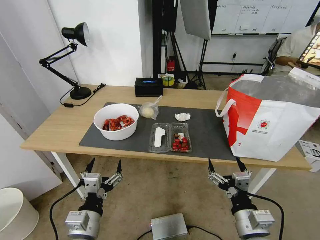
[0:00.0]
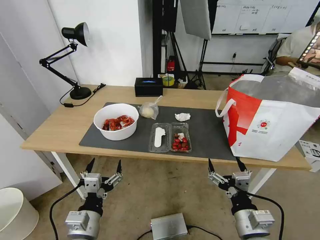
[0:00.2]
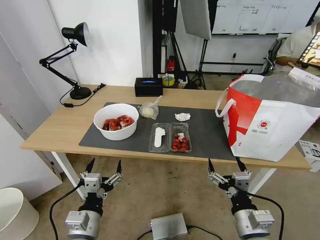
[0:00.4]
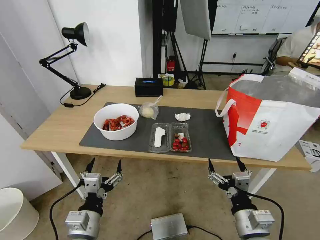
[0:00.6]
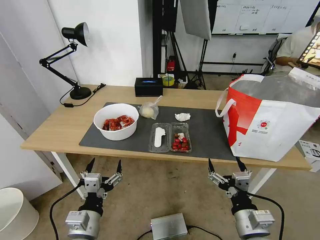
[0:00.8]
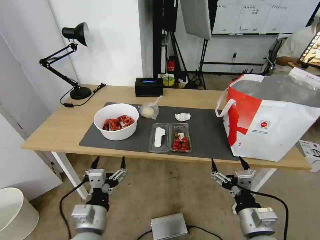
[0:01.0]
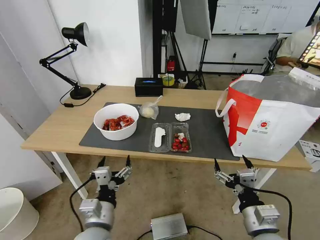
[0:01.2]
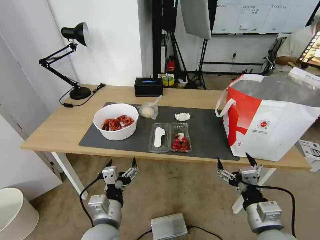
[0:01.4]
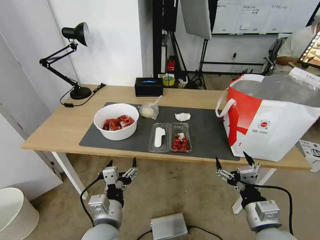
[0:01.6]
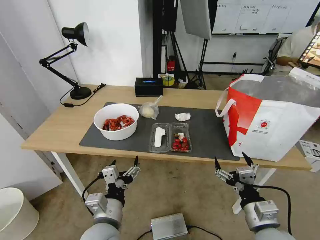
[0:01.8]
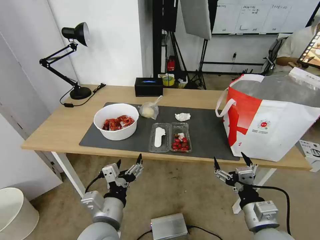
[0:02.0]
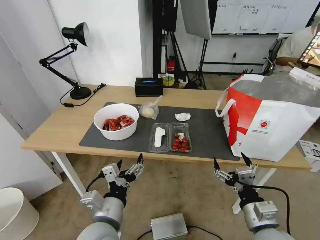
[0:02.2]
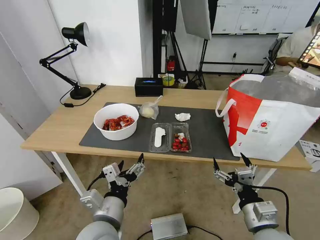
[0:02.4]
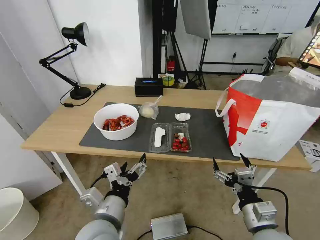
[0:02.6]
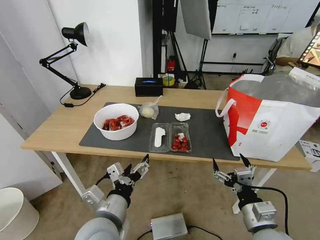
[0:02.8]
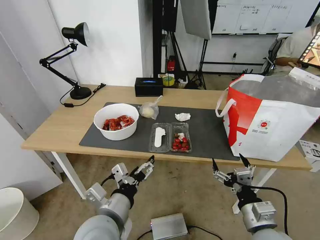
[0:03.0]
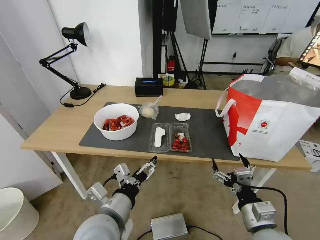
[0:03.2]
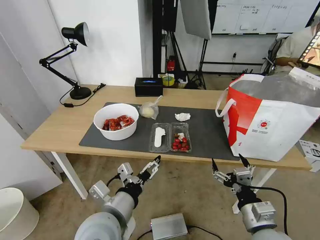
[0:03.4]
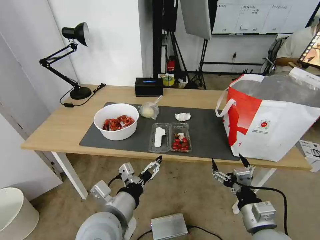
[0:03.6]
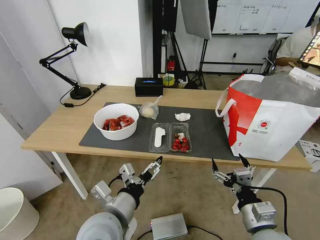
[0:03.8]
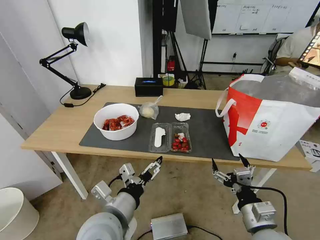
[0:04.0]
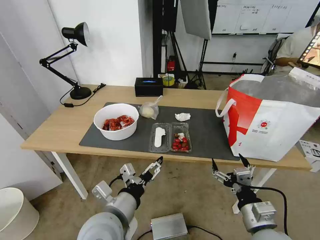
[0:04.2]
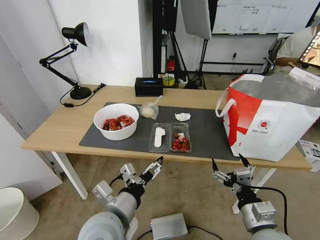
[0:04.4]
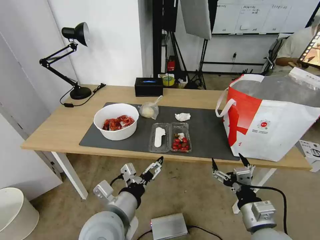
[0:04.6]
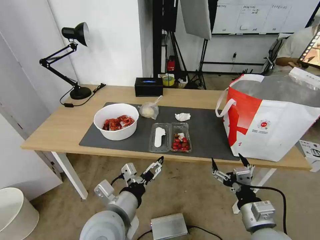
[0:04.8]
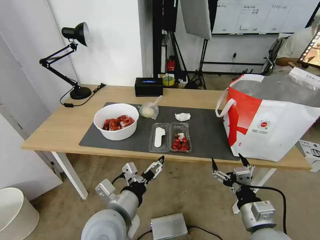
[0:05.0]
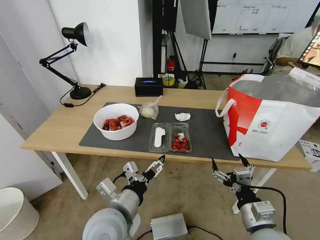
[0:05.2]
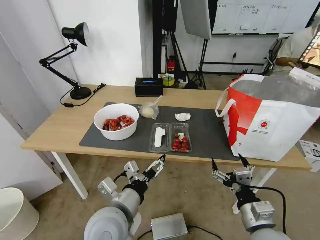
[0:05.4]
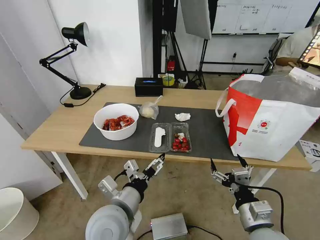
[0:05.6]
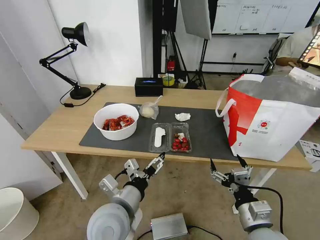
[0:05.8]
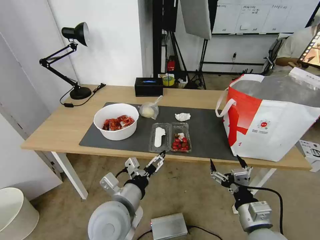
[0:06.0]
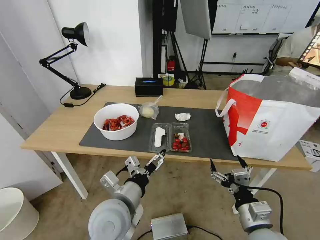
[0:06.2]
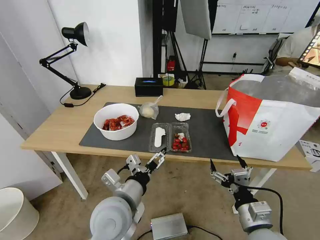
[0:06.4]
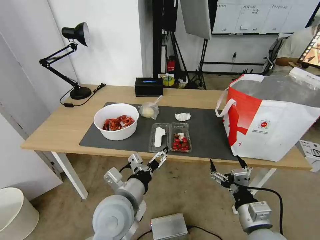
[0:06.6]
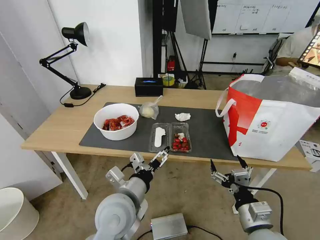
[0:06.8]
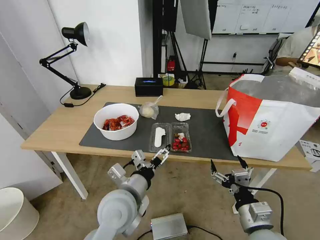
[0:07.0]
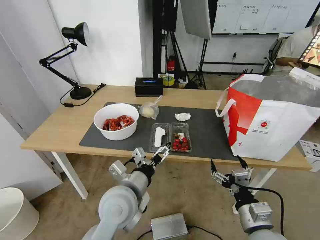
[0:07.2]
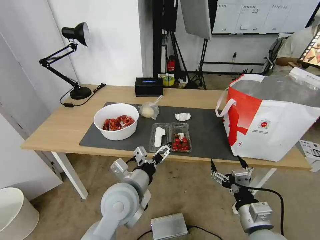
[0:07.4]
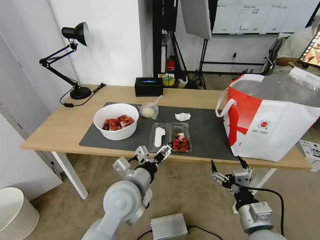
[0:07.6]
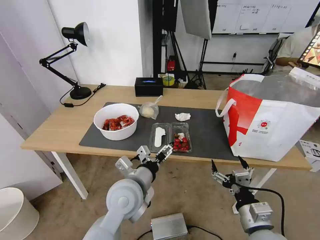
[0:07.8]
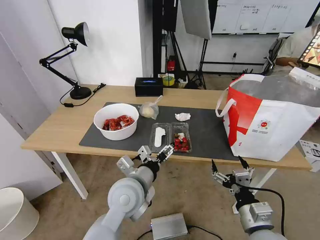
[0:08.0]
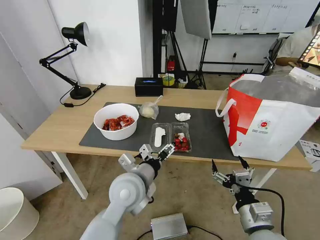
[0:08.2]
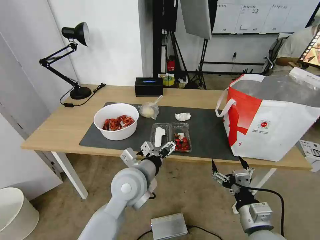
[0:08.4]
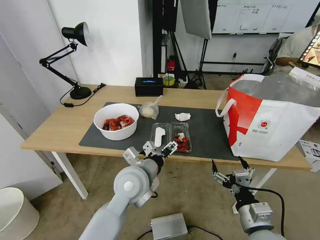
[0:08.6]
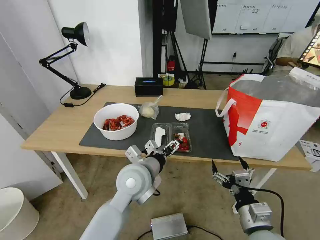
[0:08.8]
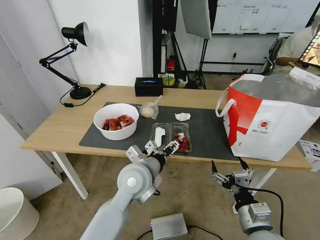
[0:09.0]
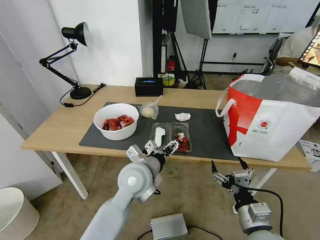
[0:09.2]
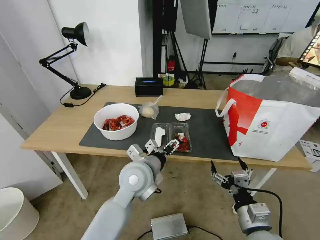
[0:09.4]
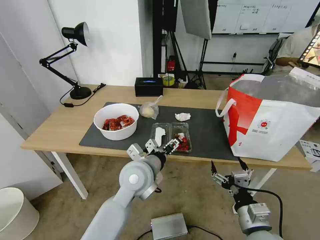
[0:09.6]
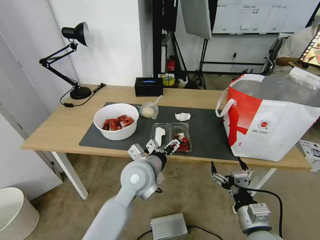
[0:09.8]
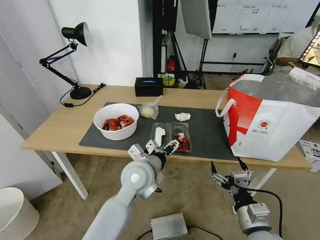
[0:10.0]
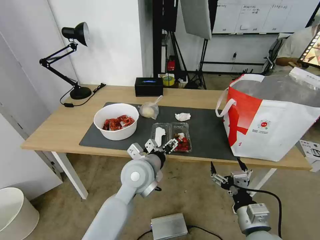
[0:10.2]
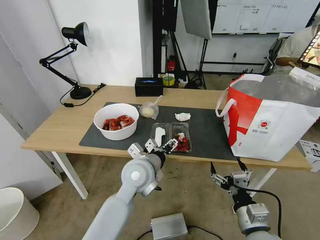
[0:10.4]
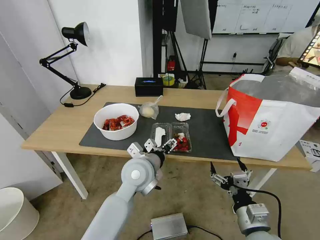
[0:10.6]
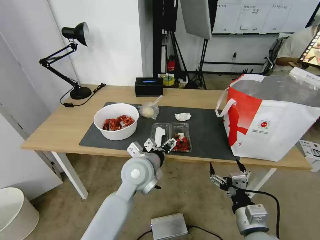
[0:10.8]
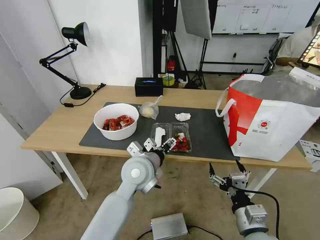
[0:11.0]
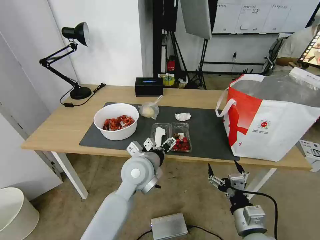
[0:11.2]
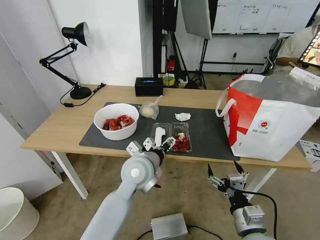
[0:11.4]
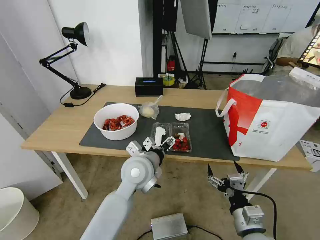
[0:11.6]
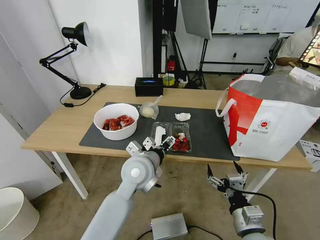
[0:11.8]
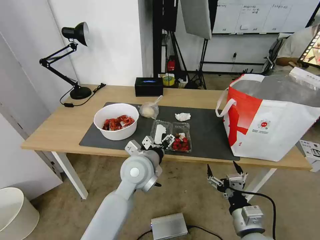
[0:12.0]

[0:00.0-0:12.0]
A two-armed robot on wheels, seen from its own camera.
Task of the whole recording: Pick up the trash from the table and place it into the takeout bag.
0:01.6 to 0:03.0: The left gripper goes roughly 5 cm upward.
0:03.0 to 0:06.0: The grippers make only small movements.
0:06.0 to 0:07.6: The left gripper goes about 5 cm forward.
0:07.6 to 0:09.0: The left gripper moves some 5 cm.
0:09.0 to 0:12.0: The grippers move only a little.

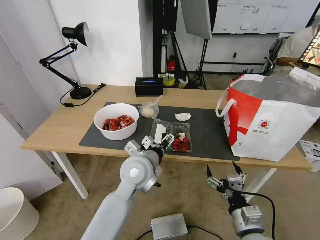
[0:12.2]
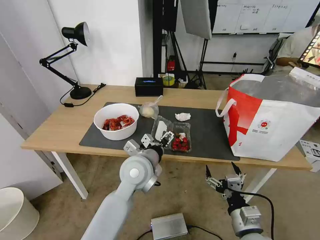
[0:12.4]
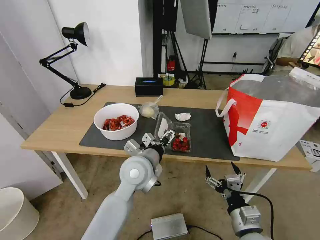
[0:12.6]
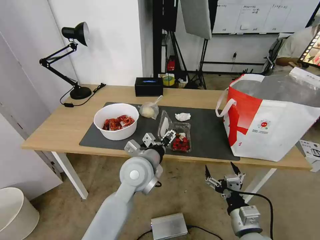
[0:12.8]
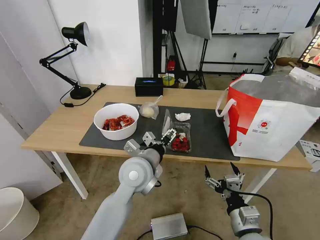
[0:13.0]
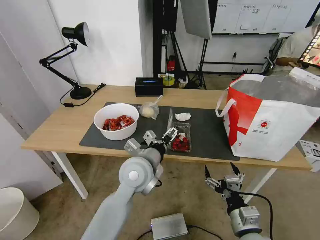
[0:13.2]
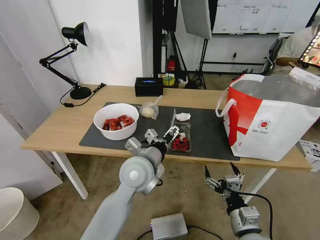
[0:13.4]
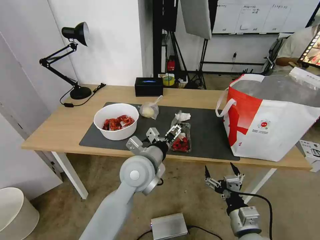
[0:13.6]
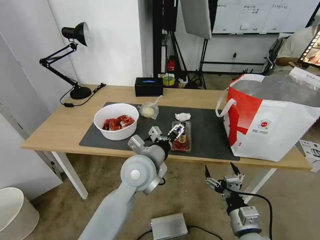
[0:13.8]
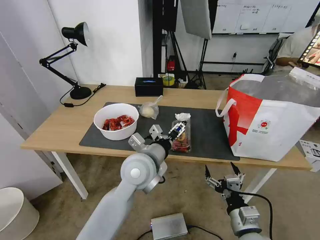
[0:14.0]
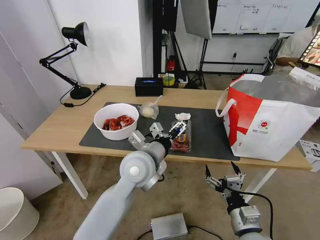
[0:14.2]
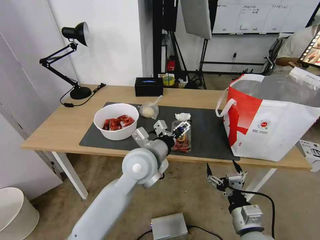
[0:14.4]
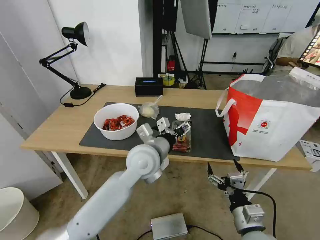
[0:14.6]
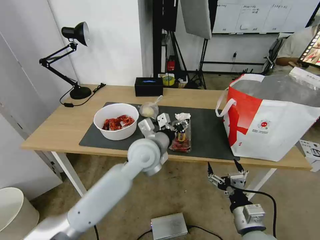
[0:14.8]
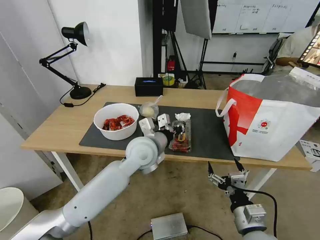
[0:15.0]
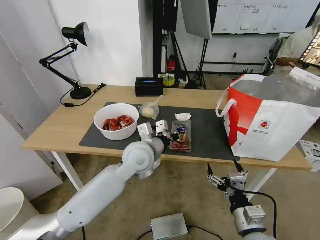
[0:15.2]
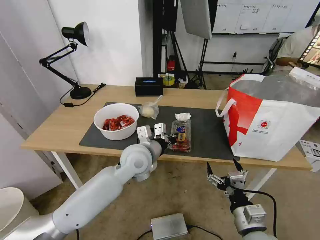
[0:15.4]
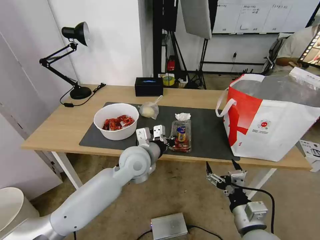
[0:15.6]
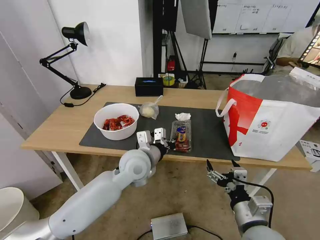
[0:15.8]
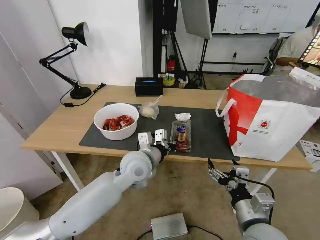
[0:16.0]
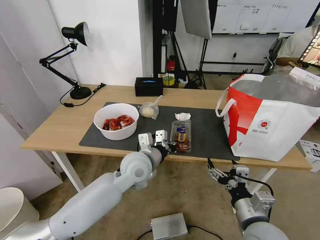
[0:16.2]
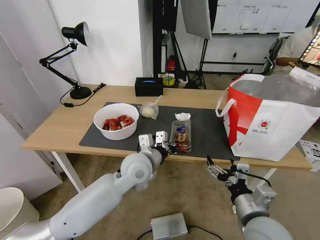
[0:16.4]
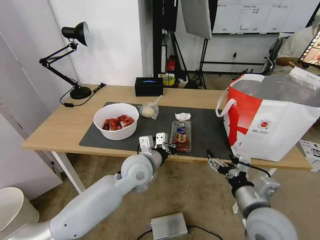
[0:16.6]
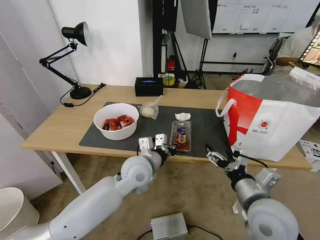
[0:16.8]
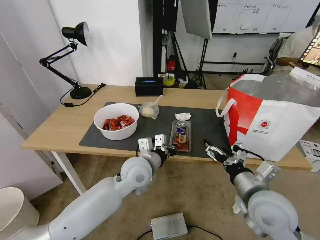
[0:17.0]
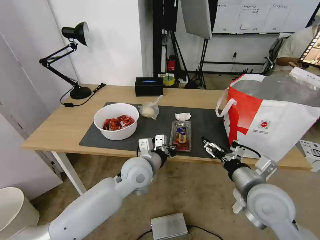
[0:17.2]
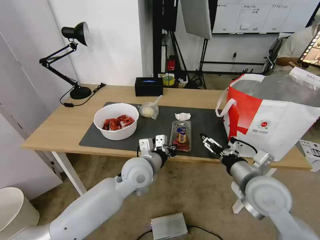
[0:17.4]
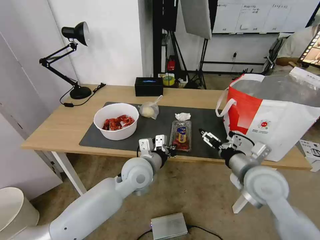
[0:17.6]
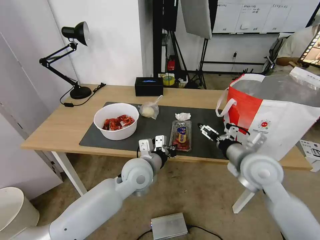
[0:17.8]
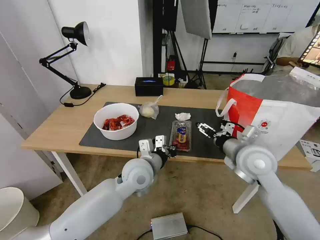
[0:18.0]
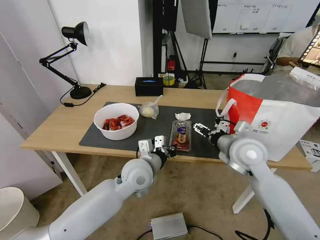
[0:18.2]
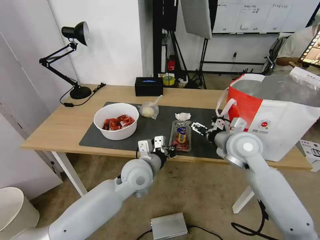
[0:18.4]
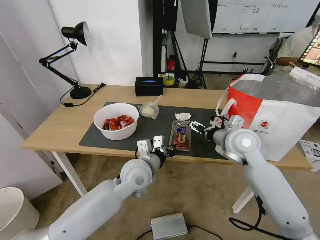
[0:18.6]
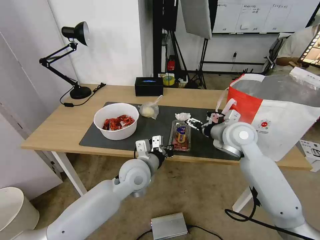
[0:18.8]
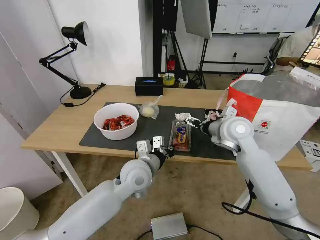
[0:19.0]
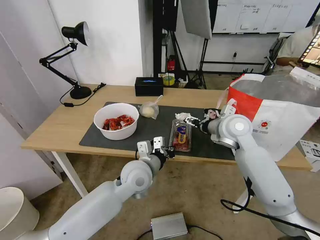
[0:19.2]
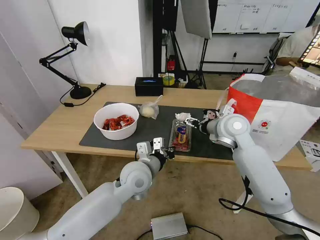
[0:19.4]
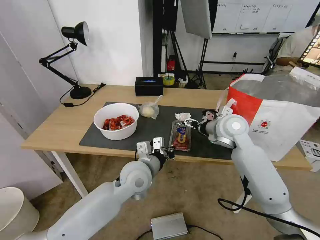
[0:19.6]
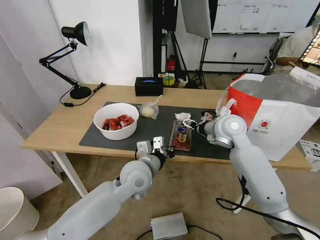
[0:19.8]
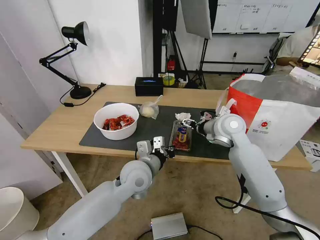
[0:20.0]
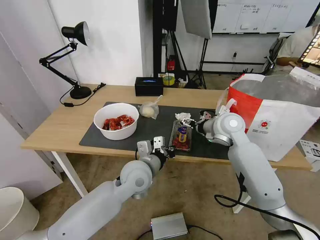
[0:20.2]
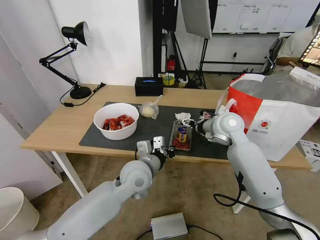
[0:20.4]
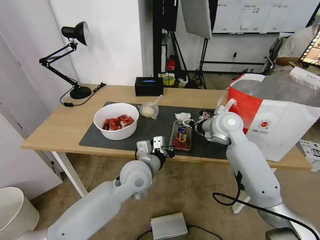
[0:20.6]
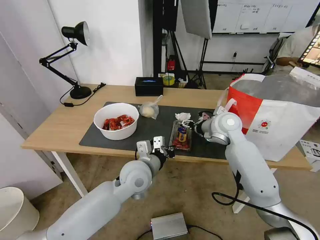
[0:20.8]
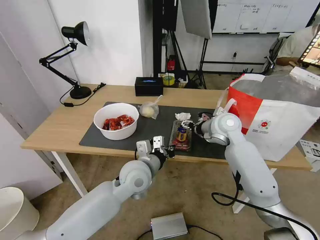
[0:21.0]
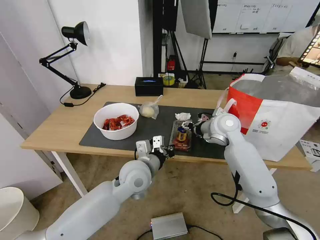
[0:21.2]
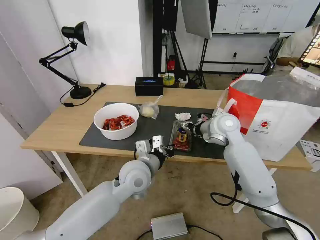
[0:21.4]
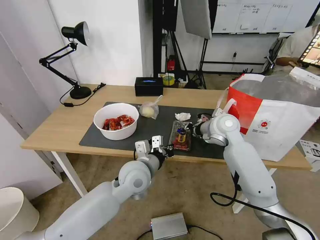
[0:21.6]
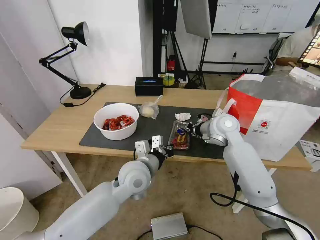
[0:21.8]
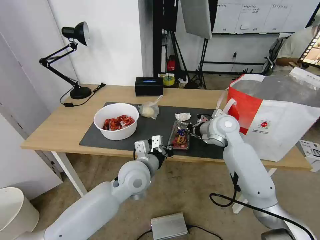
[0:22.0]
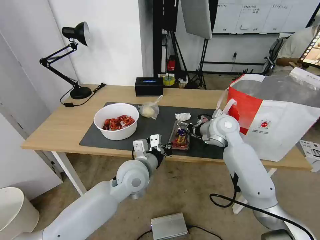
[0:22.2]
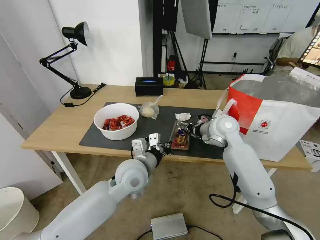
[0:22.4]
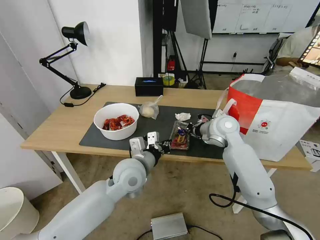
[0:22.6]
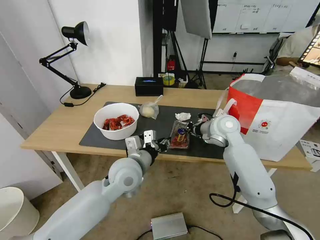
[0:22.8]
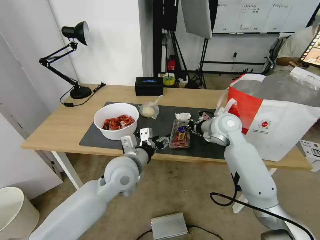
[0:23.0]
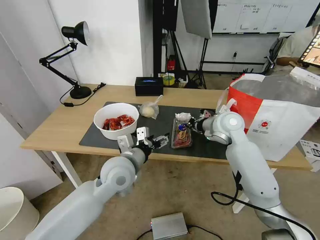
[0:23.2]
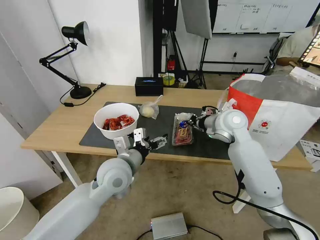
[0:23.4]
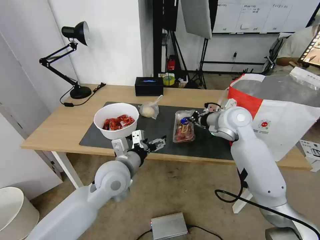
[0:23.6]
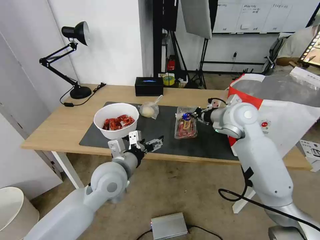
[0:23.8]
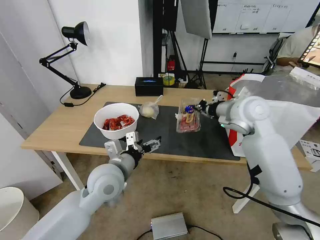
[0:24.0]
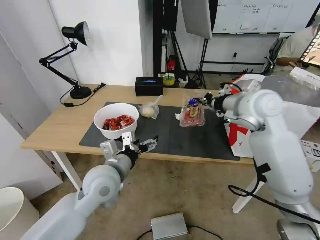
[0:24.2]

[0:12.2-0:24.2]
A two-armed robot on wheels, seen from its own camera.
Task of the whole recording: Pick up the trash from the table and place it into the takeout bag.
0:12.2 to 0:13.8: The grippers make only small movements.
0:13.8 to 0:15.2: The left gripper heads forward, covering approximately 5 cm, and closes up.
0:15.2 to 0:16.6: The right gripper goes some 5 cm upward.
0:16.6 to 0:18.2: The right gripper heads forward, covering approximately 15 cm.
0:18.2 to 0:19.8: The right gripper heads forward, covering about 10 cm.
0:19.8 to 0:21.2: The grippers stay close to where they were, moving slightly.
0:21.2 to 0:22.6: The right gripper closes.
0:22.6 to 0:24.2: The right gripper shifts approximately 15 cm upward. Meanwhile the left gripper goes approximately 5 cm to the left, and opens.
